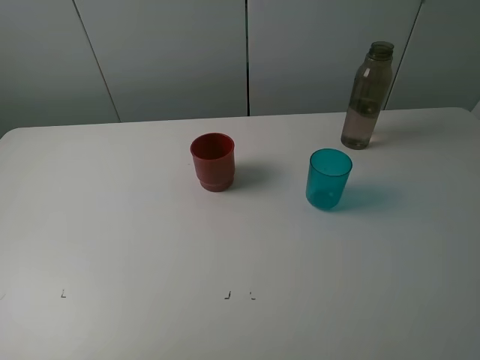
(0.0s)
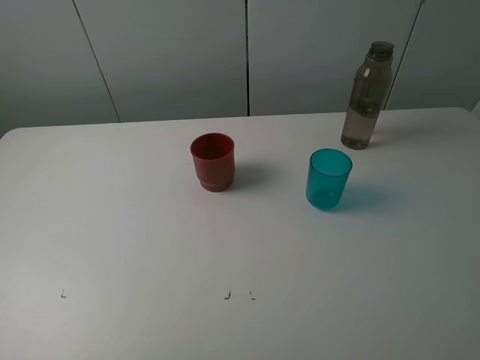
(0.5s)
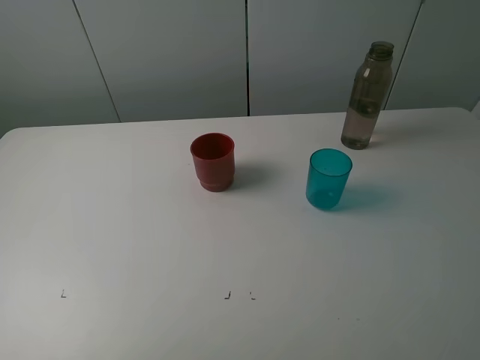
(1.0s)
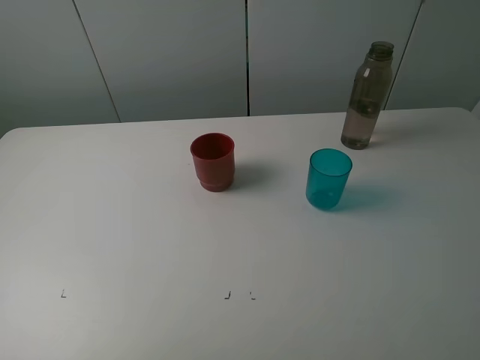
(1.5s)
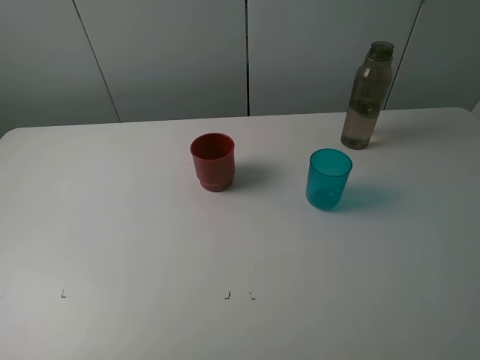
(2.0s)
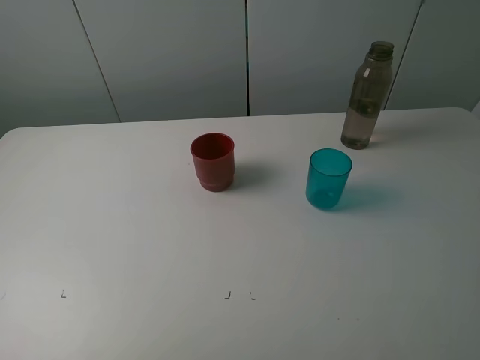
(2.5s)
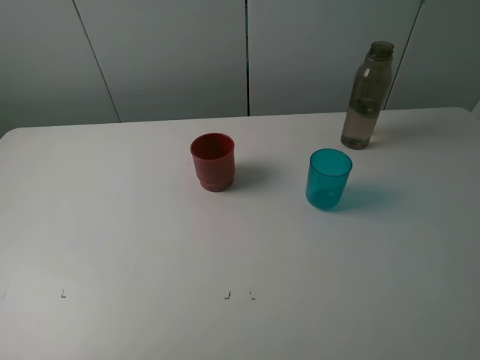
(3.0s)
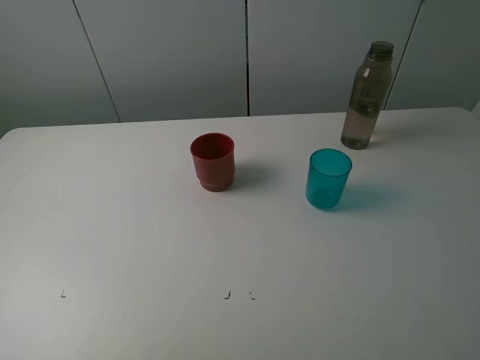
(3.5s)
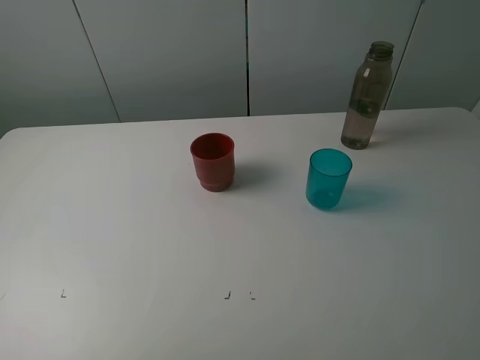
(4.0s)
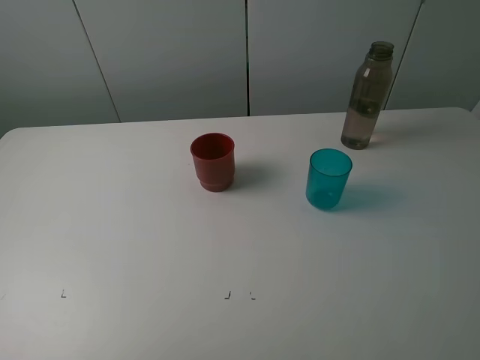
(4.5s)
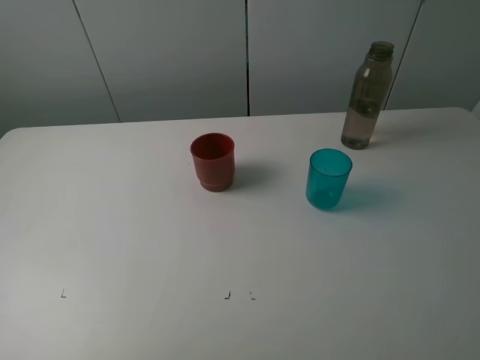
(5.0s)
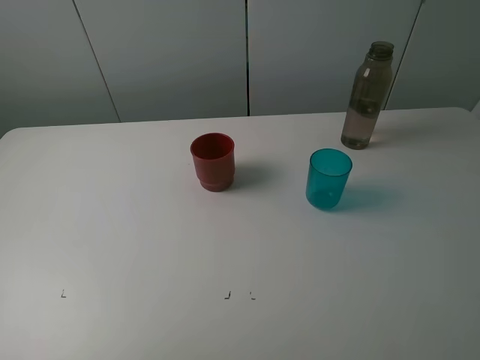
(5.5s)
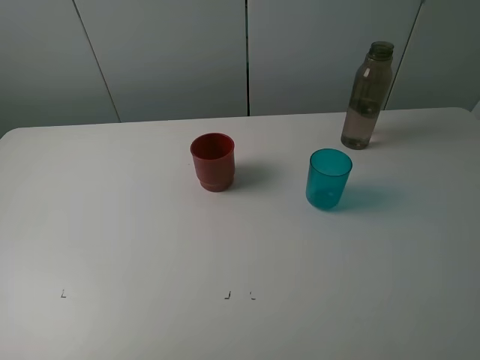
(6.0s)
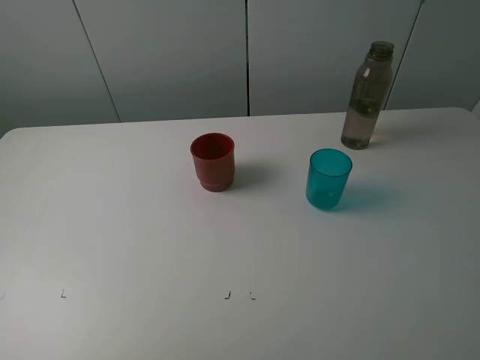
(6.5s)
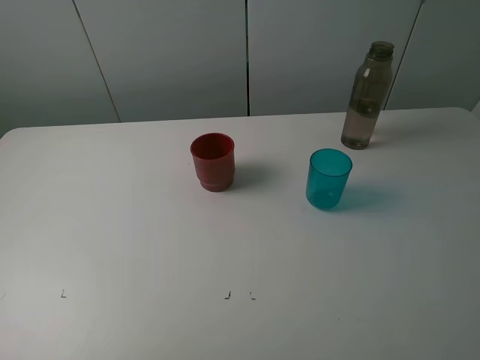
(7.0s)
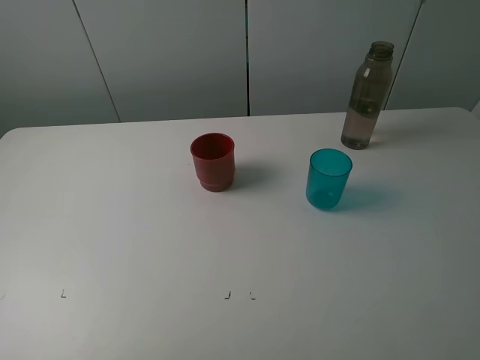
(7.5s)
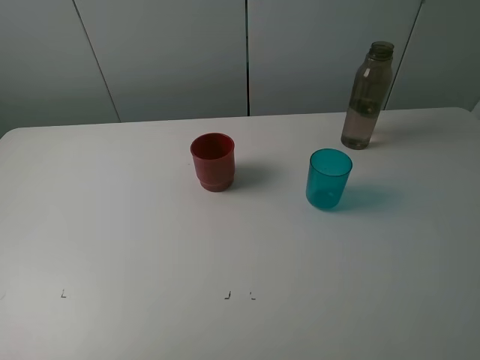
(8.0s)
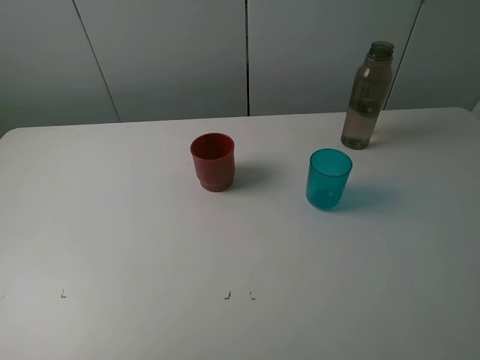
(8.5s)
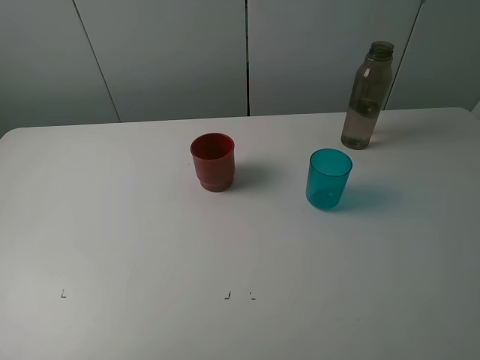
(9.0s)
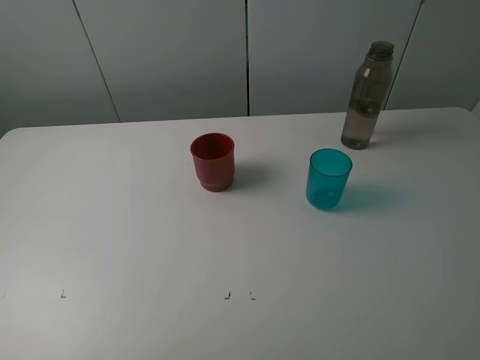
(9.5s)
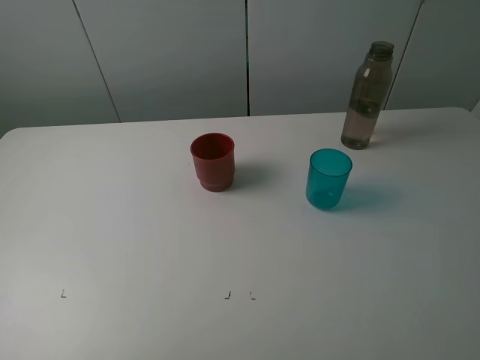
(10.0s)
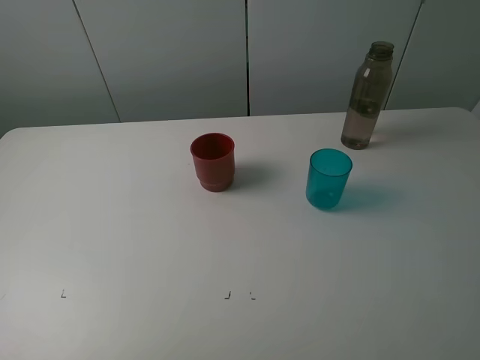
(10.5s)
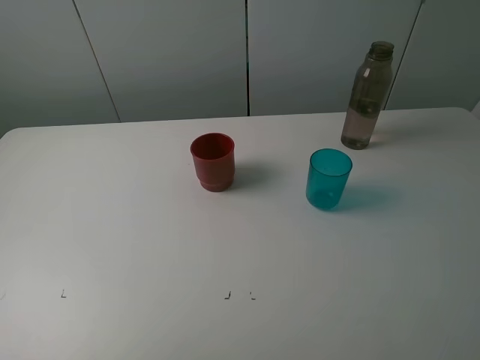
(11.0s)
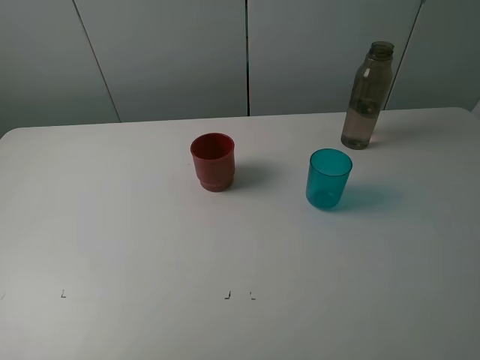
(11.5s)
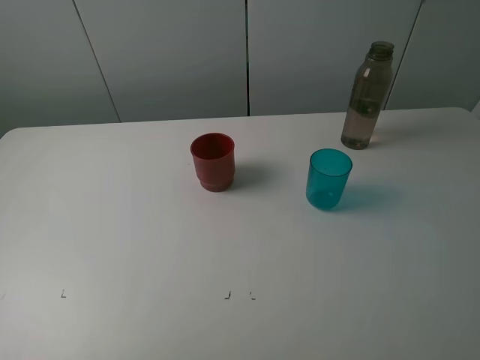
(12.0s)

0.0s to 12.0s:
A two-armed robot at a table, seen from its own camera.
Task of the whole recording: pick up the bottle and pour water into the cup, then pick up the cup containing water and pour it into another cup.
0.0s to 12.0s: Both grippers stay put.

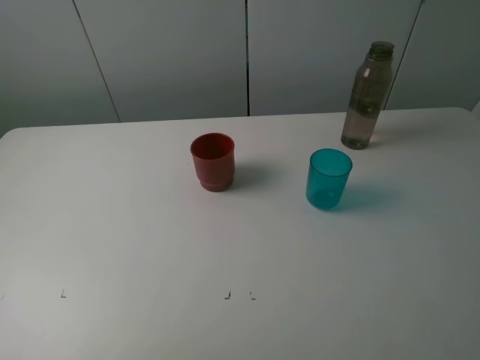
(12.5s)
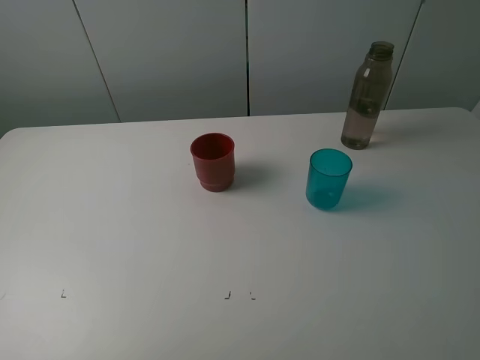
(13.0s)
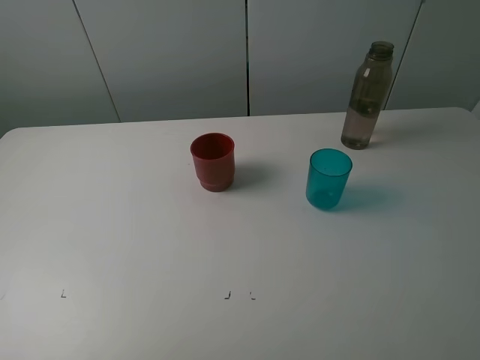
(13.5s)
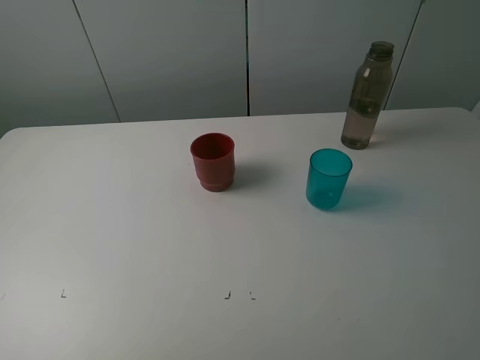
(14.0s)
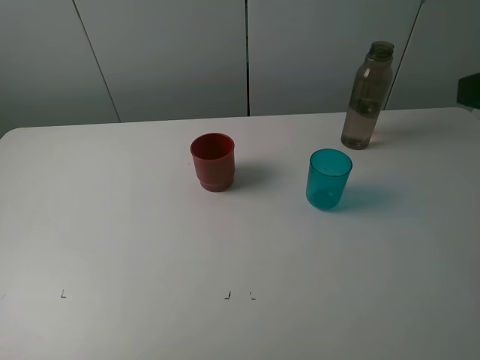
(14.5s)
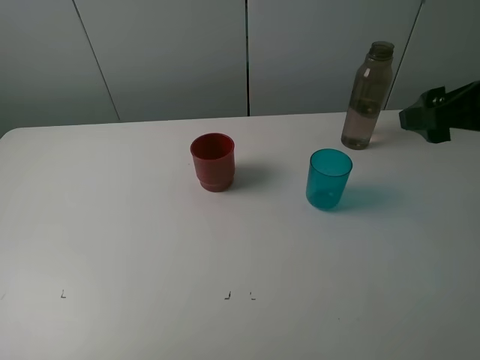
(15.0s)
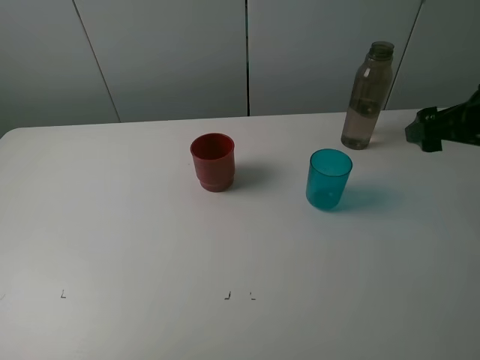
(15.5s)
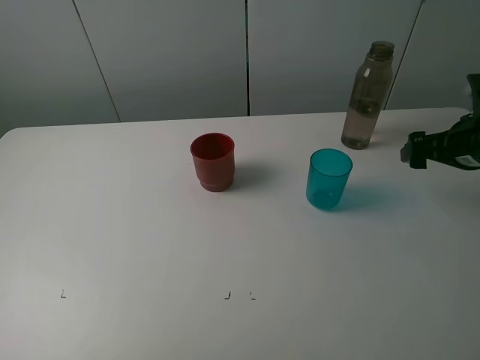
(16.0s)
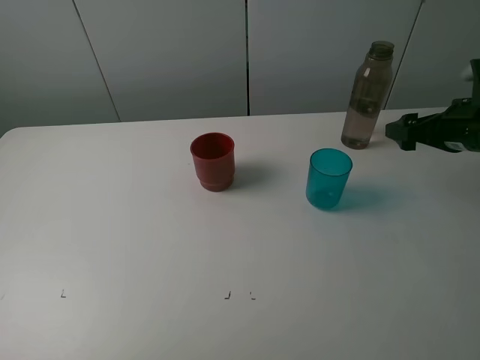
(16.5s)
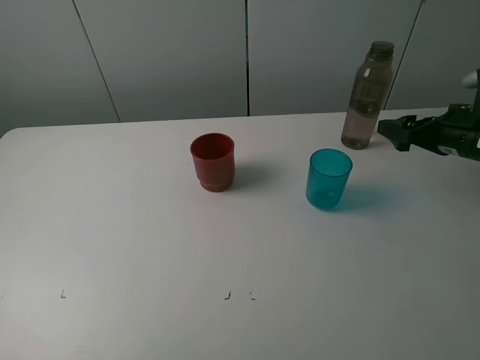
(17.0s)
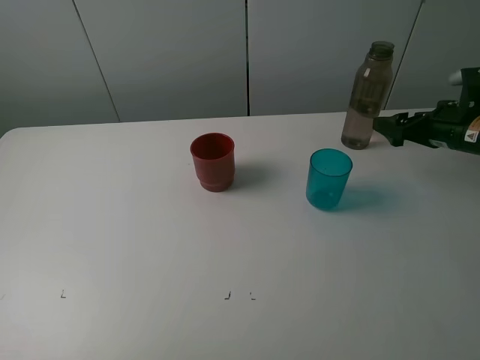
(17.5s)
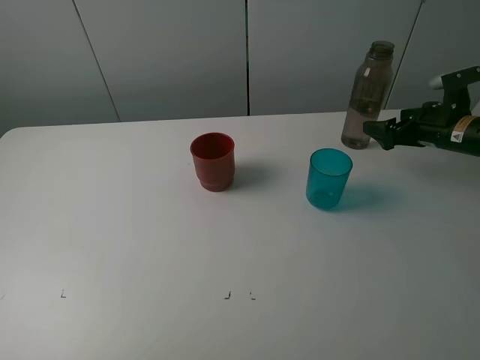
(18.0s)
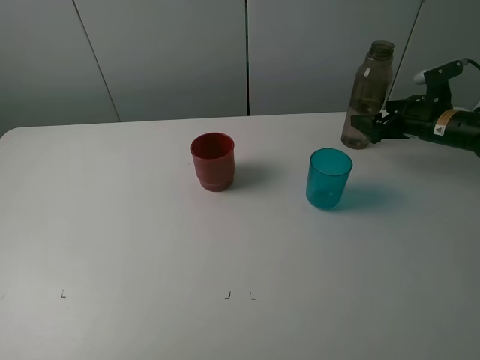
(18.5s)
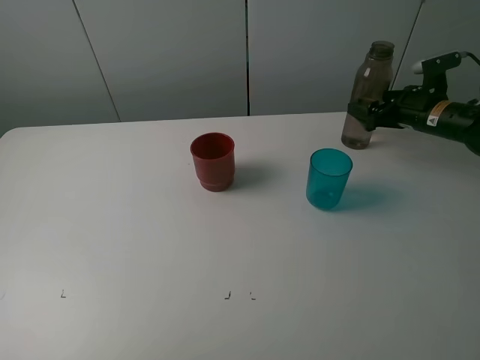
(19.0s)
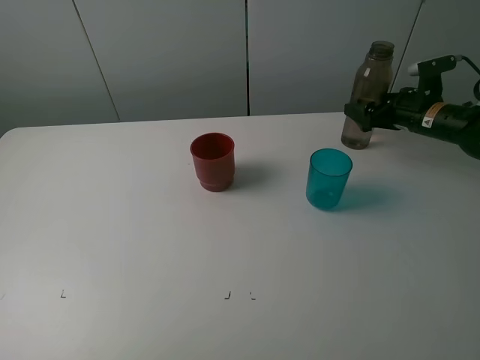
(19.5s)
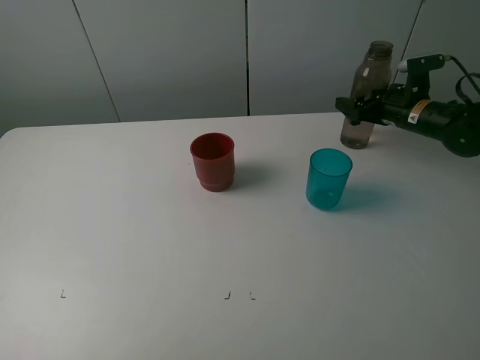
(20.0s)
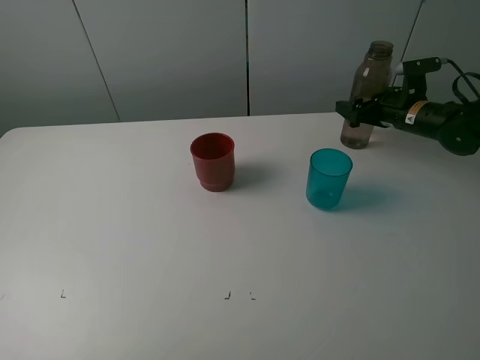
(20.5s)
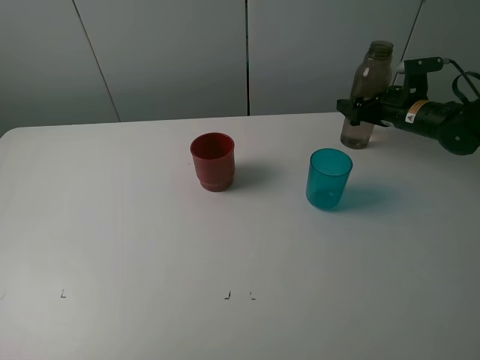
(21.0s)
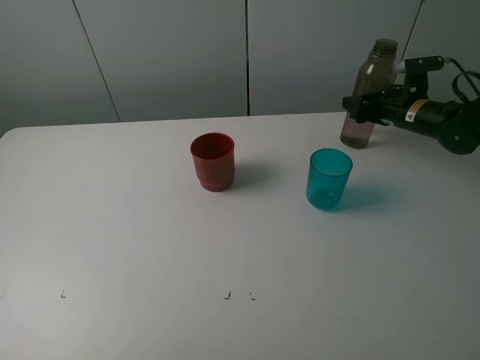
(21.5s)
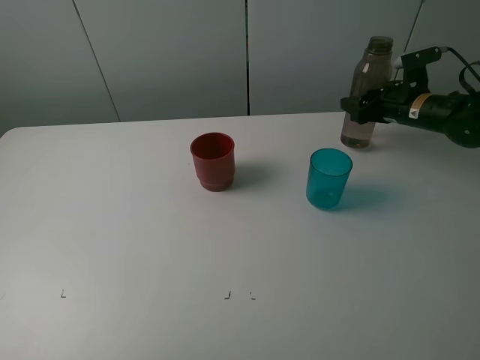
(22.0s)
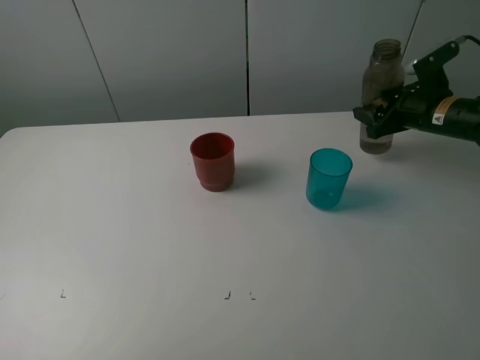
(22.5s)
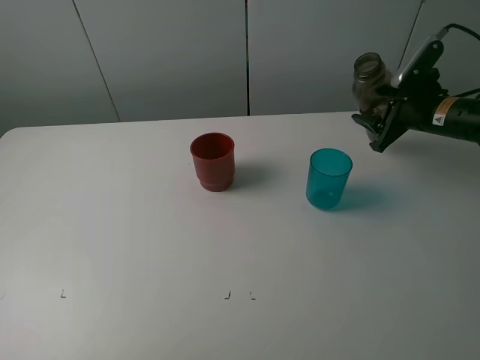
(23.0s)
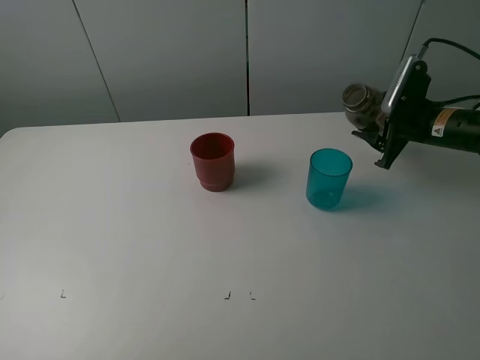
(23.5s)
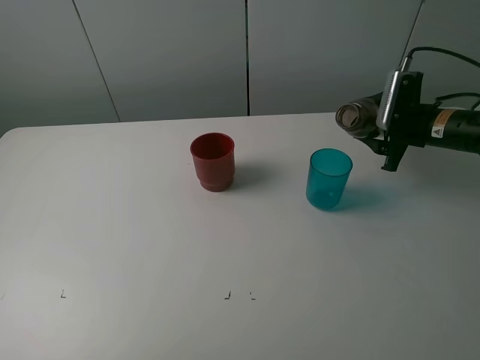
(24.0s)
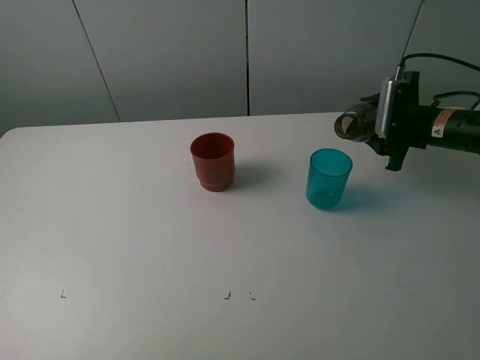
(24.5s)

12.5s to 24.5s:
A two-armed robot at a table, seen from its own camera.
Task of the whole recording: pick up the bottle and pour water into the cup, then pick up the cup containing water and pour it into another cup.
Step, 12.5s to 21.5s: Grasp the brown bottle with the right gripper.
14.5s to 16.5s: The right gripper shifts about 25 cm forward and downward.
16.5s to 18.5s: The right gripper heads forward and downward, covering approximately 10 cm.
18.5s to 20.5s: The grippers move only a little.
20.5s to 22.5s: The right gripper travels backward by roughly 5 cm, and closes.

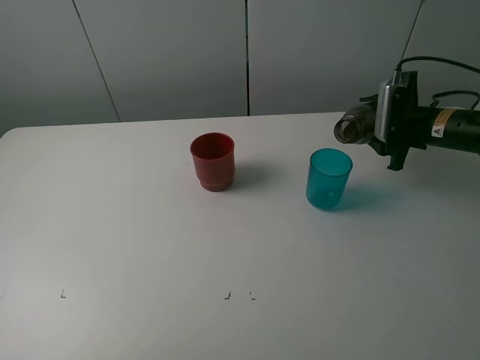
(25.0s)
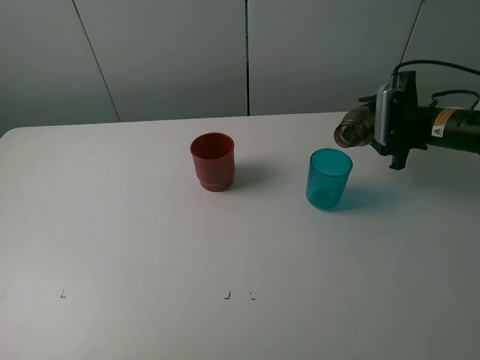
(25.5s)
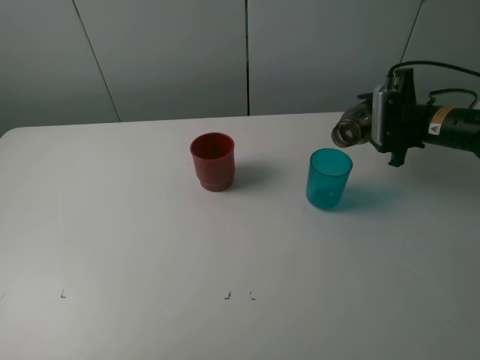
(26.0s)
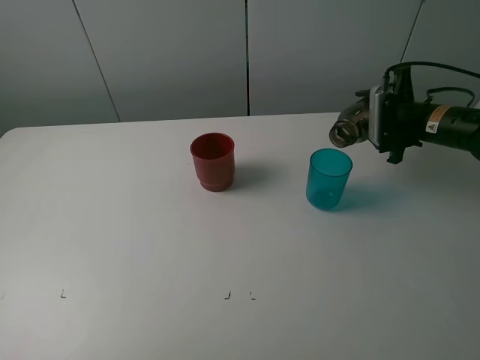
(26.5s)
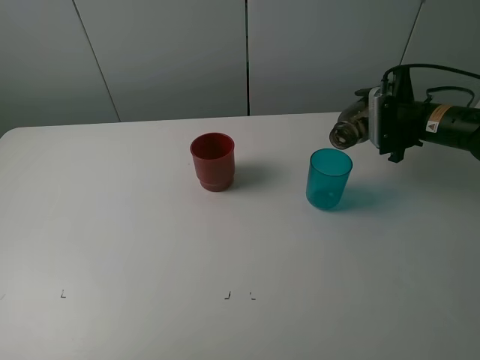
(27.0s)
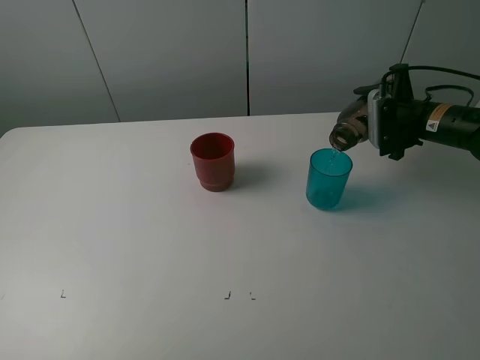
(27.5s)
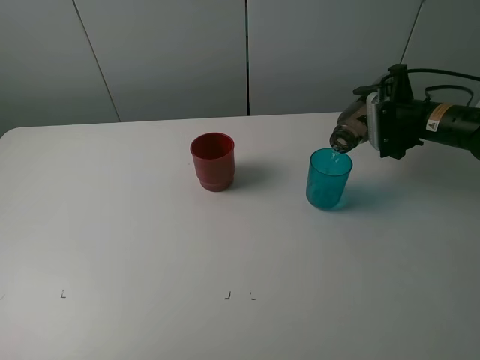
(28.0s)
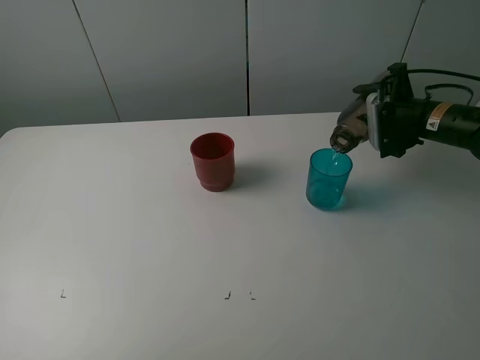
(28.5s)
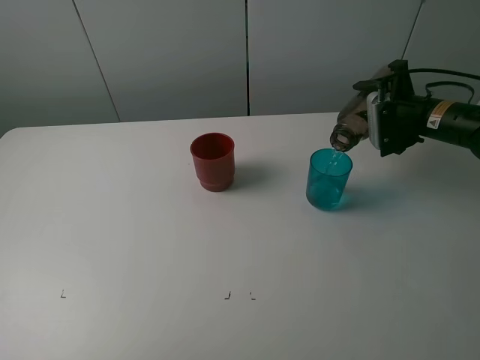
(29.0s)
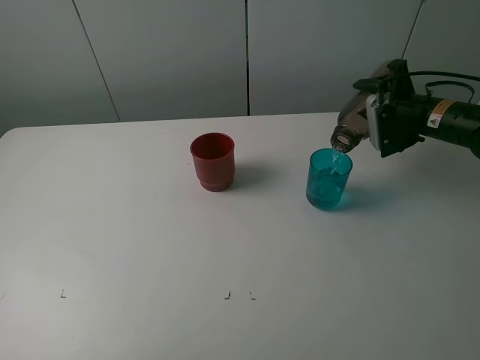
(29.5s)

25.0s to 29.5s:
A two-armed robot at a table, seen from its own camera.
Task of the whole recording: pick up the bottle and pour water into the cup, then pick up the cup containing water and pour it into another cup.
25.0s to 27.0s: The grippers stay close to where they were, moving slightly.
27.0s to 29.5s: The grippers make only small movements.
